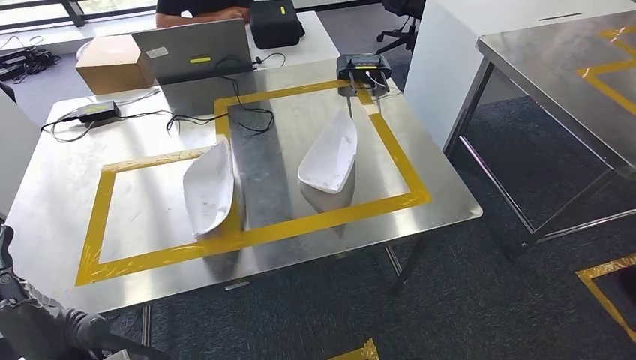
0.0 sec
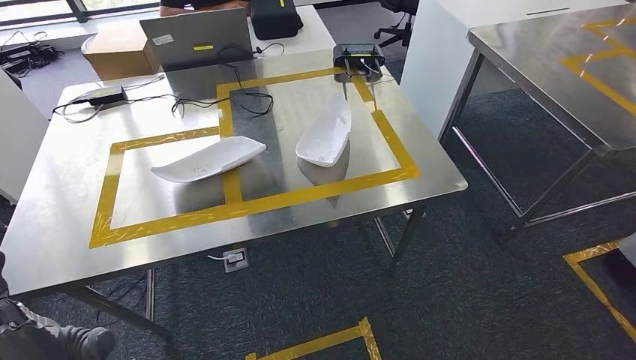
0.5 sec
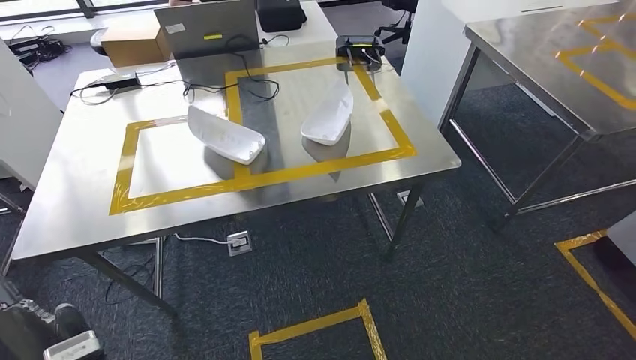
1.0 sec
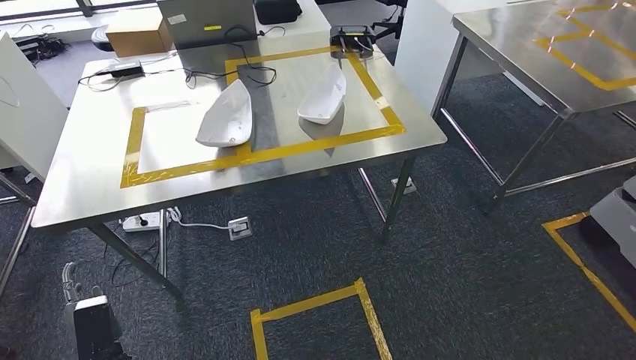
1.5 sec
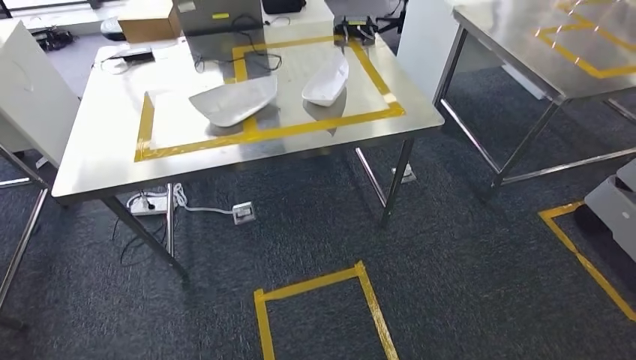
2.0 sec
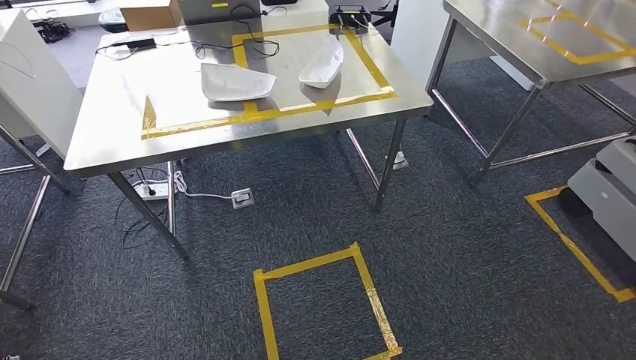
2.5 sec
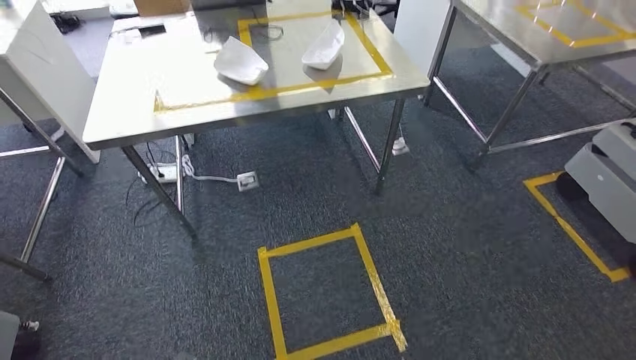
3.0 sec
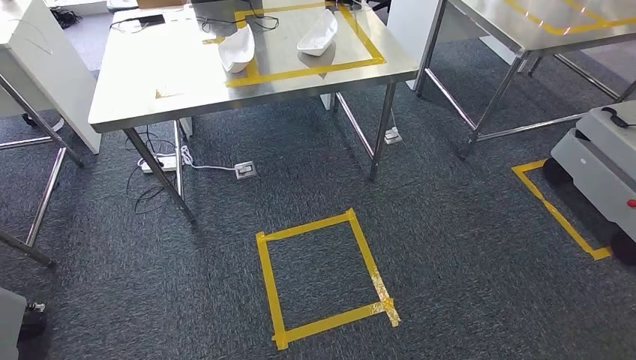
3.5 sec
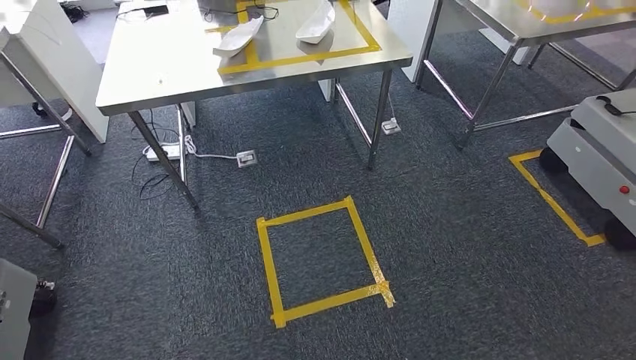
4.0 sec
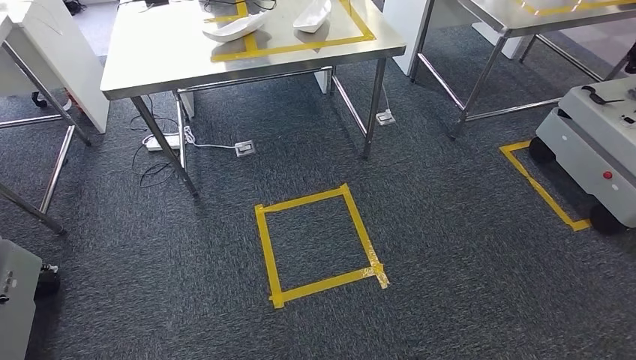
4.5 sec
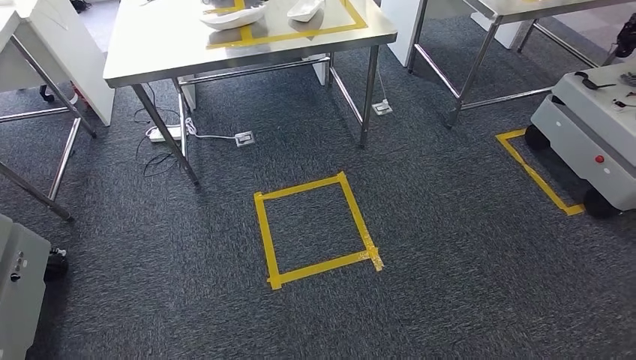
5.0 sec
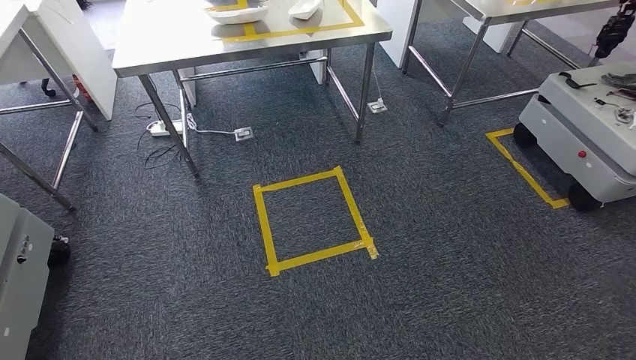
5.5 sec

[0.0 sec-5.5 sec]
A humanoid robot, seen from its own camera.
Step, 0.0 sec to 5.5 sec: Move to the initial position of the workbench.
